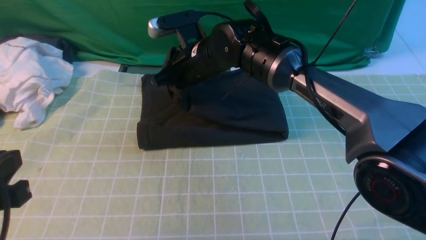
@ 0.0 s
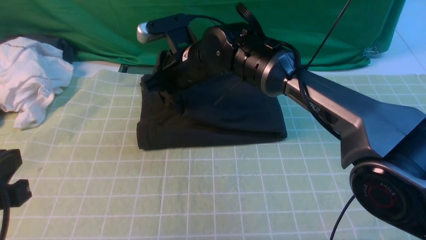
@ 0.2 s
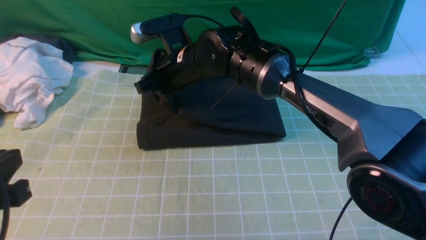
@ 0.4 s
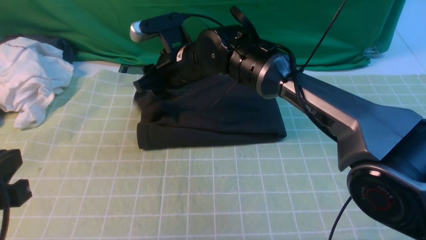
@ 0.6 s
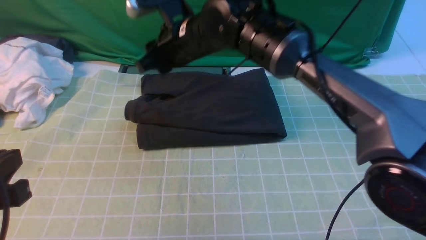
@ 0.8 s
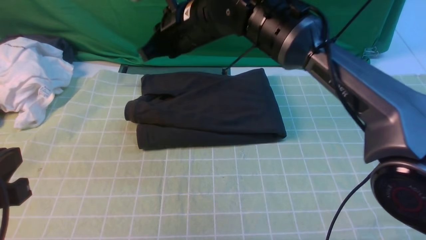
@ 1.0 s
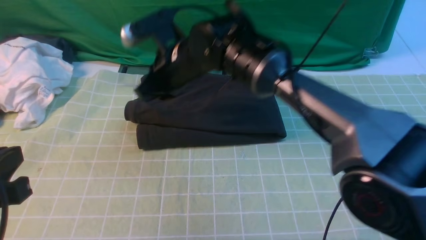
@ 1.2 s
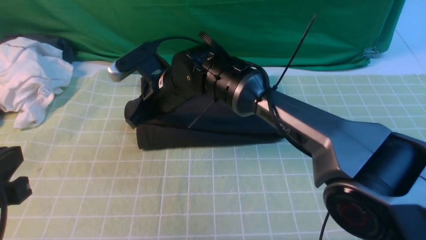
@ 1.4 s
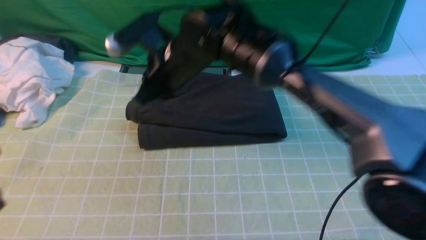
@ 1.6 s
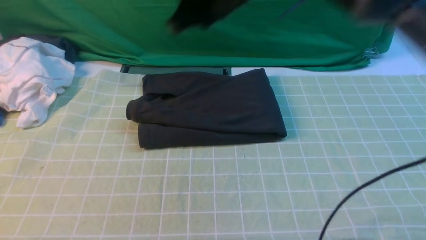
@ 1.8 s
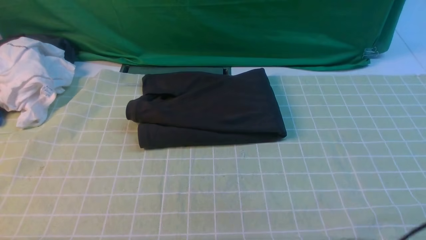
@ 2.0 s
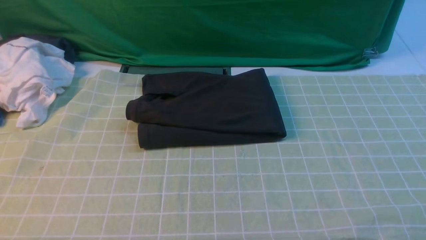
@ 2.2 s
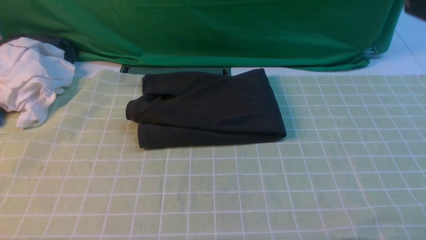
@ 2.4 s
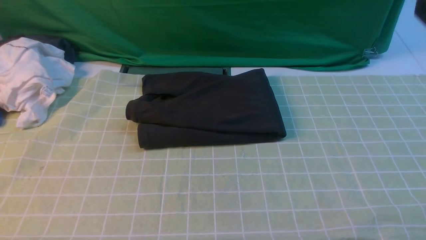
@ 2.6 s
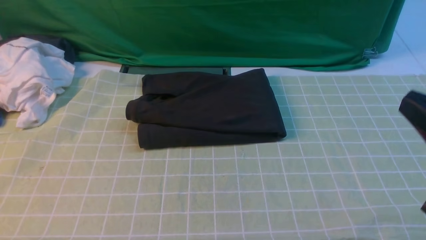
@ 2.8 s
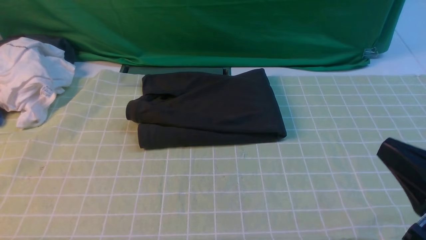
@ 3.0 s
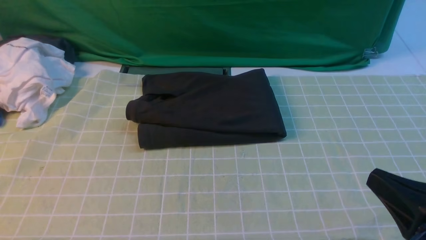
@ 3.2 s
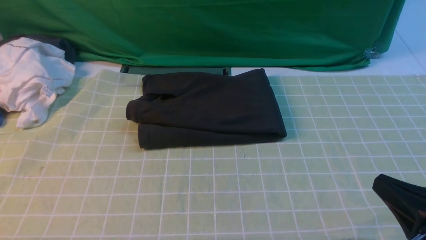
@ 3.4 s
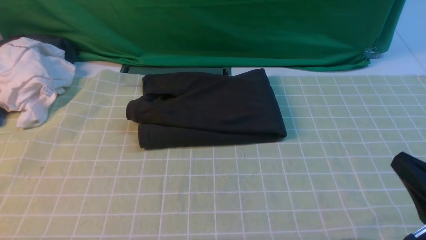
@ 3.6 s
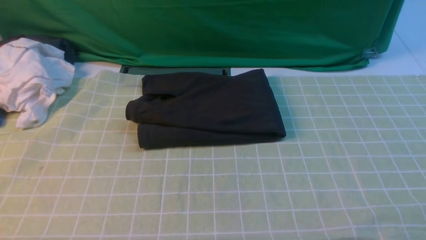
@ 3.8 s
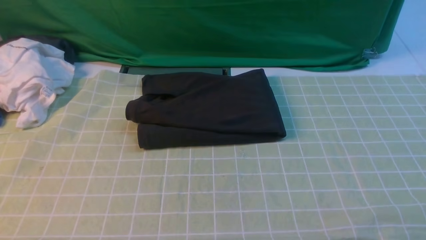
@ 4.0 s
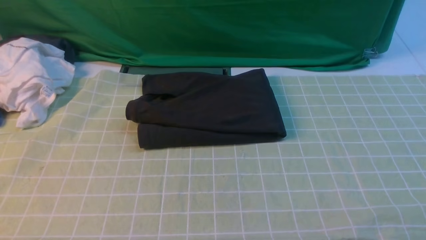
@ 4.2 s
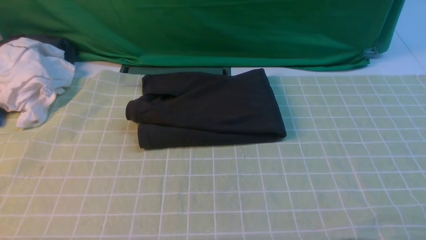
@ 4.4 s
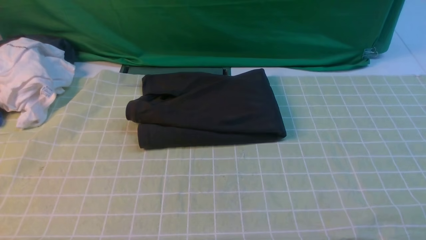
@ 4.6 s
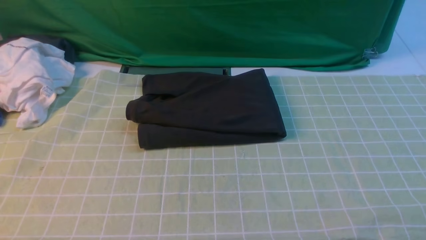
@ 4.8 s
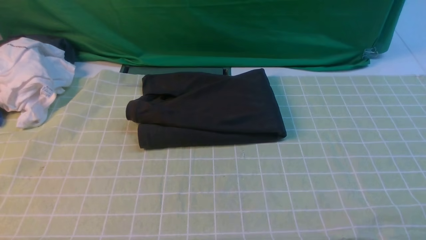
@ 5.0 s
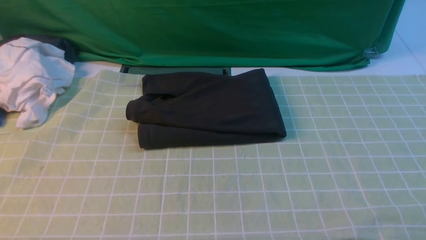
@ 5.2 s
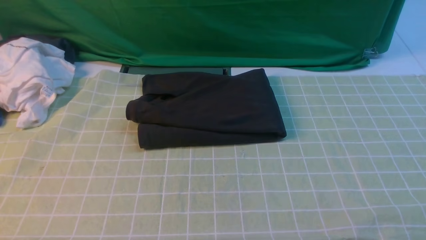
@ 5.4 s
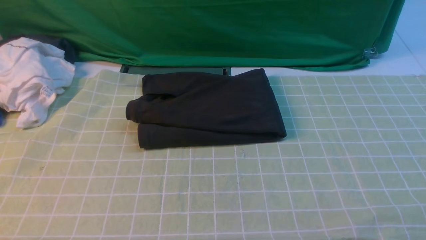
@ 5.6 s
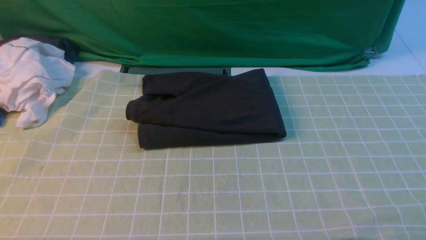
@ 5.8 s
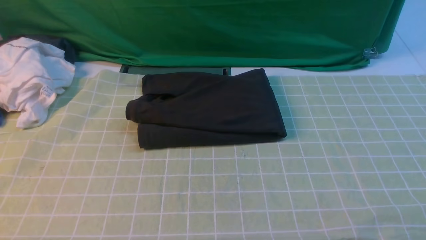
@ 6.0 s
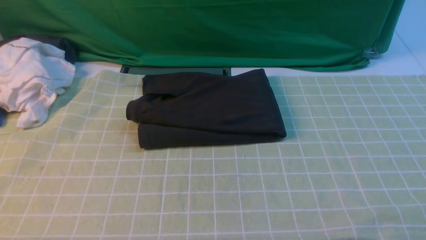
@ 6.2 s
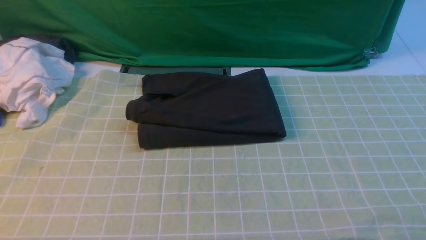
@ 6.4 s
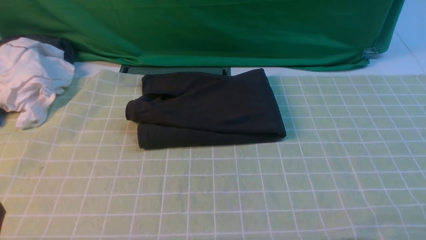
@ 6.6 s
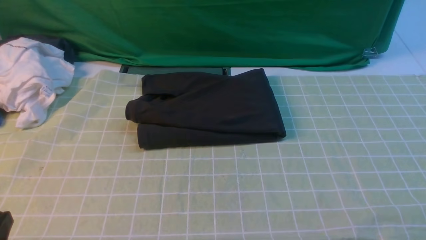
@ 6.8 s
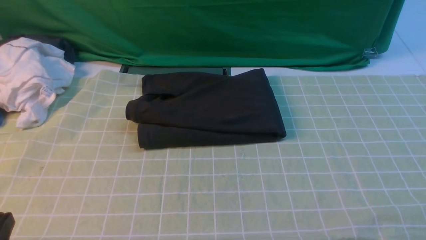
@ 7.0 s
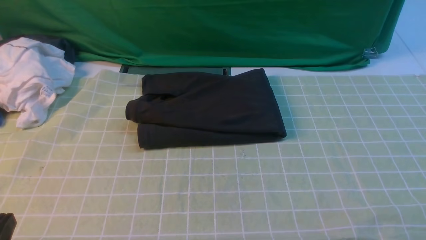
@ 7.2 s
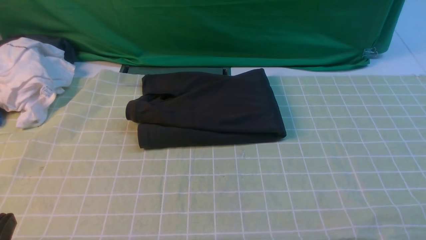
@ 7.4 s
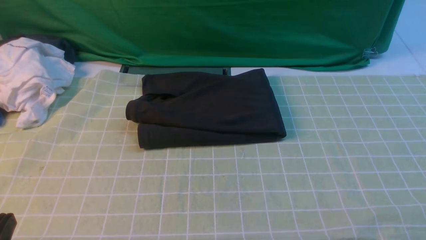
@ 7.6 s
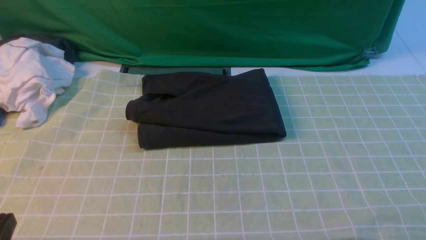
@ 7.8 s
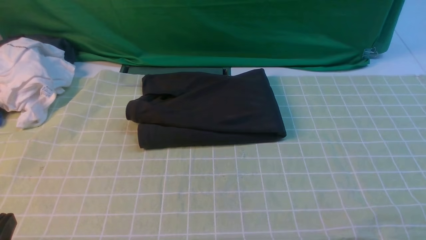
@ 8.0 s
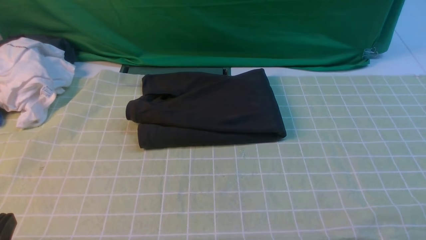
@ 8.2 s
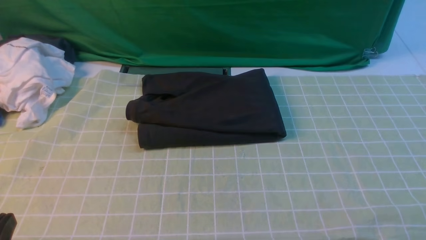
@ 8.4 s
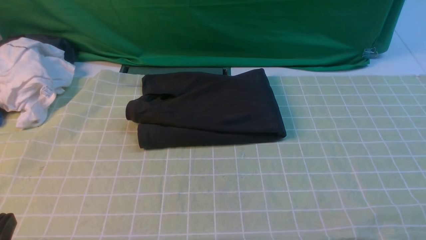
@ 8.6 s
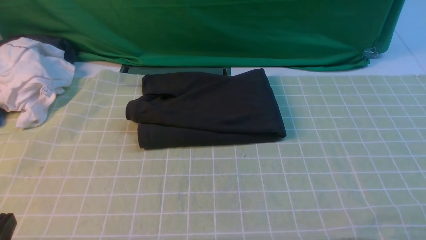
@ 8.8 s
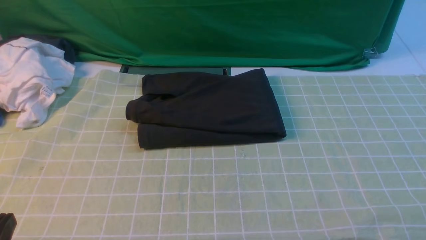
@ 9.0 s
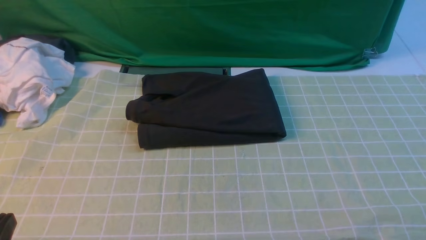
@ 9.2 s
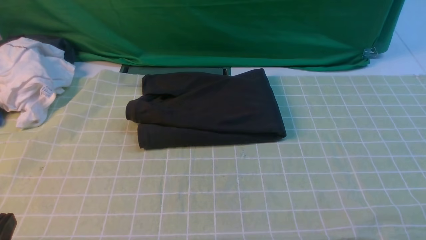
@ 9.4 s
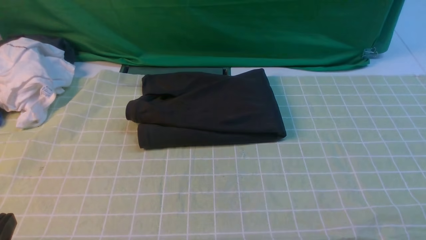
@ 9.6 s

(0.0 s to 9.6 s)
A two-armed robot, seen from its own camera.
0.0 s - 1.6 s: The right gripper goes up and down, about 5 cm each way, reversing 2 times, and opens, then closes once more.
1.6 s - 3.2 s: The right gripper heads to the right and backward, covering some 40 cm.
3.2 s - 4.8 s: The right gripper shifts about 10 cm downward and to the right.
8.0 s - 9.6 s: The two grippers keep their place.

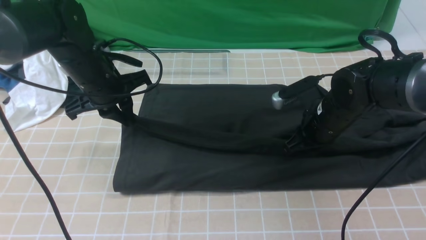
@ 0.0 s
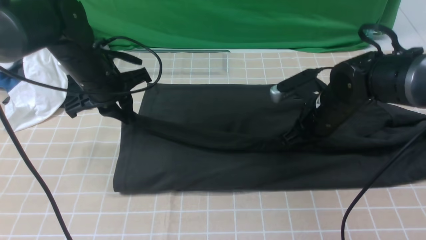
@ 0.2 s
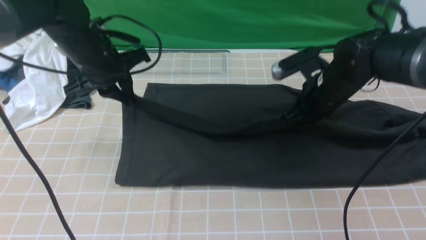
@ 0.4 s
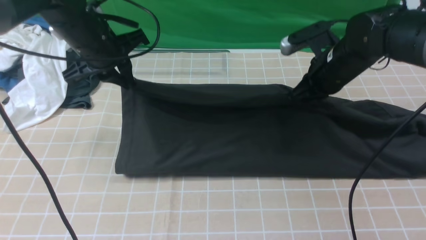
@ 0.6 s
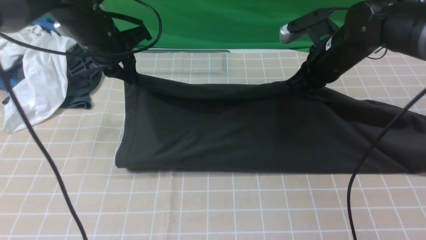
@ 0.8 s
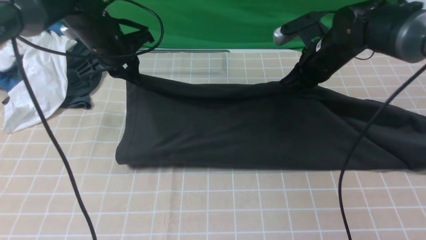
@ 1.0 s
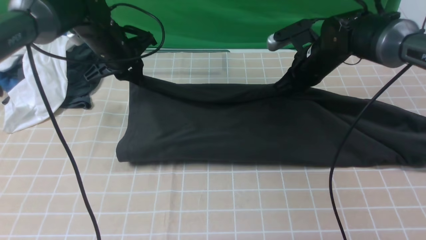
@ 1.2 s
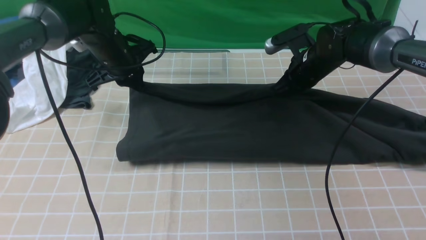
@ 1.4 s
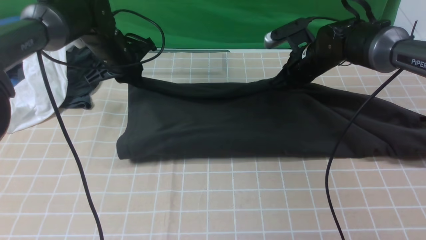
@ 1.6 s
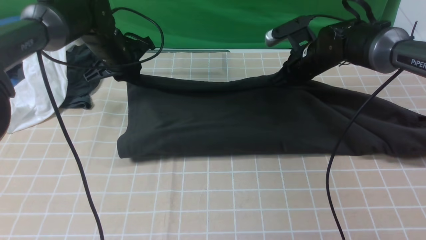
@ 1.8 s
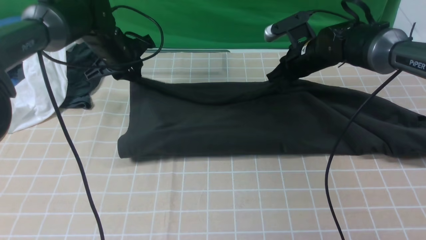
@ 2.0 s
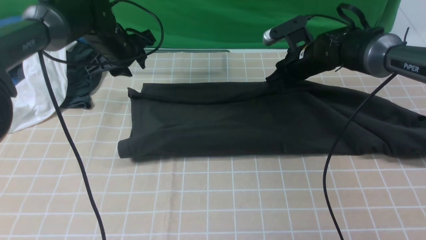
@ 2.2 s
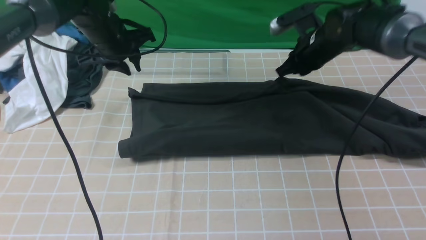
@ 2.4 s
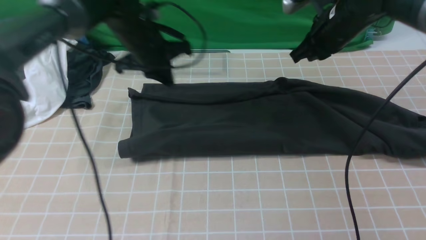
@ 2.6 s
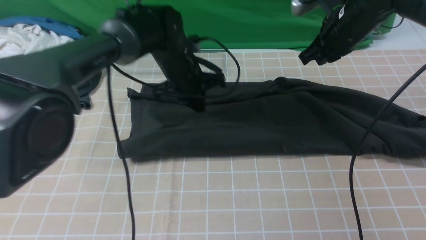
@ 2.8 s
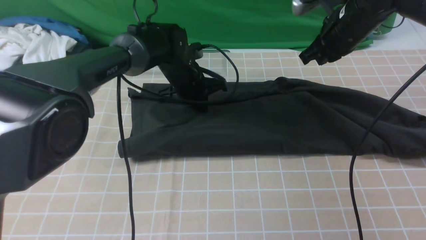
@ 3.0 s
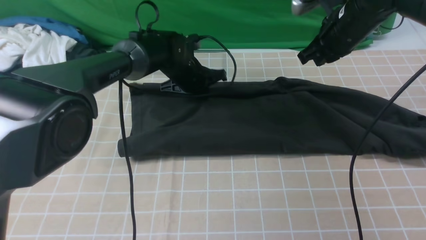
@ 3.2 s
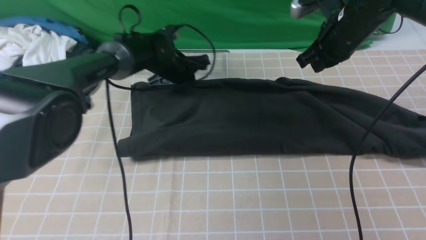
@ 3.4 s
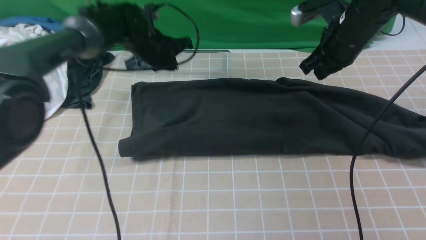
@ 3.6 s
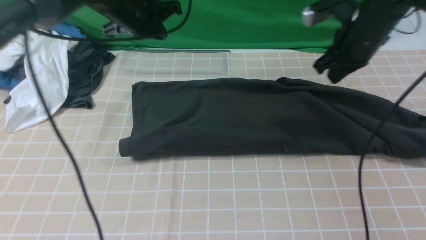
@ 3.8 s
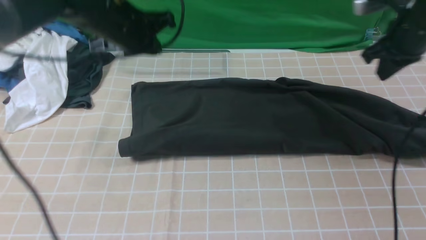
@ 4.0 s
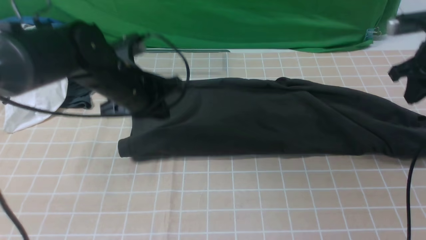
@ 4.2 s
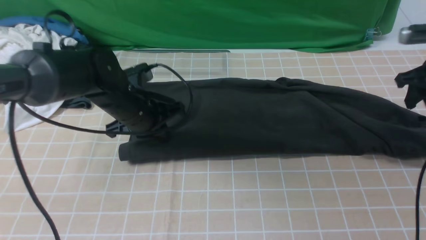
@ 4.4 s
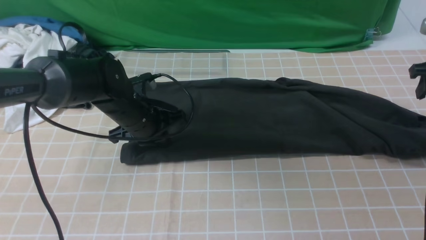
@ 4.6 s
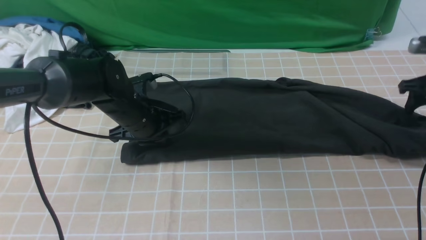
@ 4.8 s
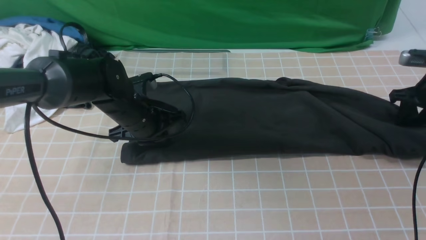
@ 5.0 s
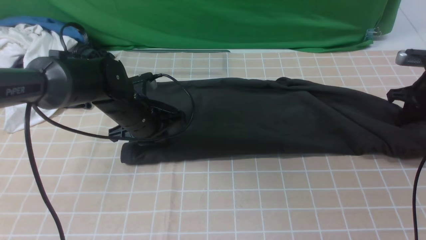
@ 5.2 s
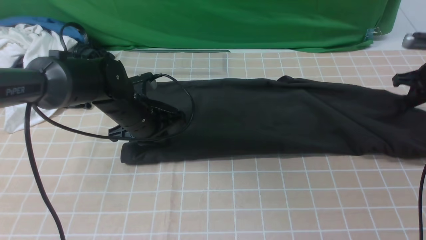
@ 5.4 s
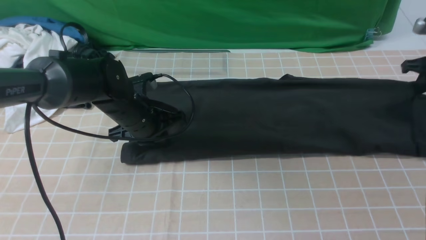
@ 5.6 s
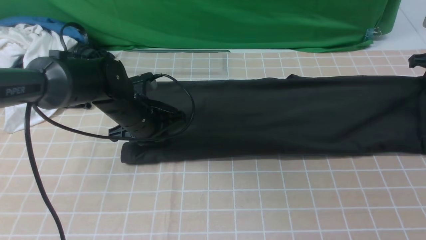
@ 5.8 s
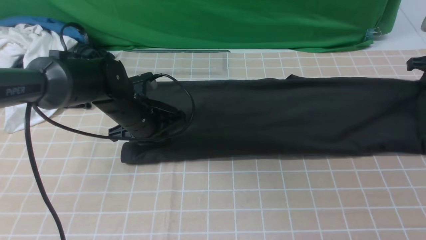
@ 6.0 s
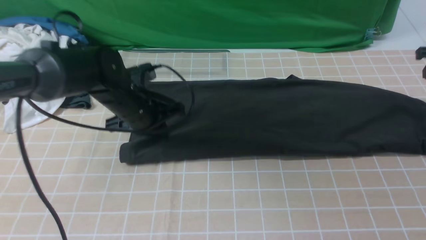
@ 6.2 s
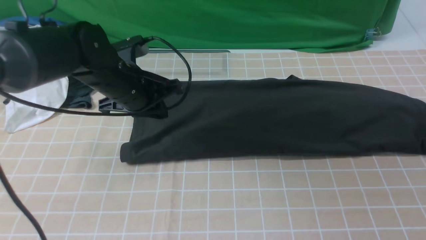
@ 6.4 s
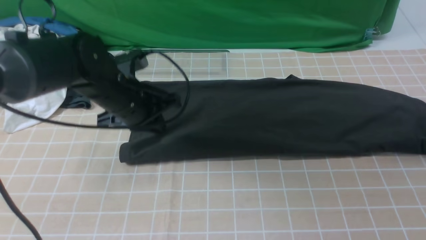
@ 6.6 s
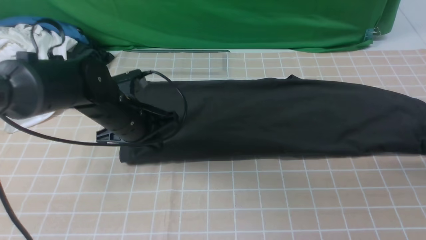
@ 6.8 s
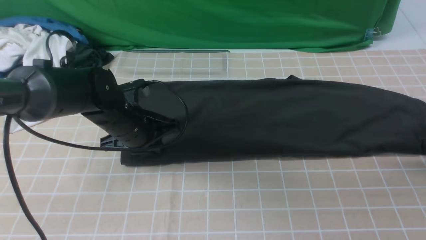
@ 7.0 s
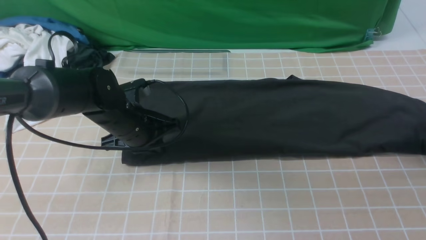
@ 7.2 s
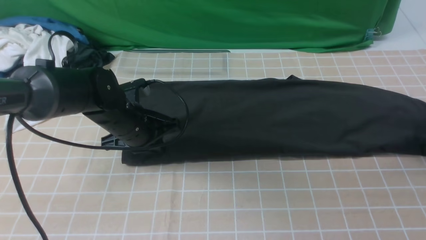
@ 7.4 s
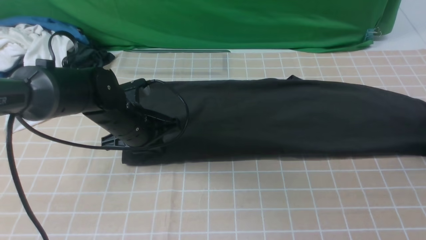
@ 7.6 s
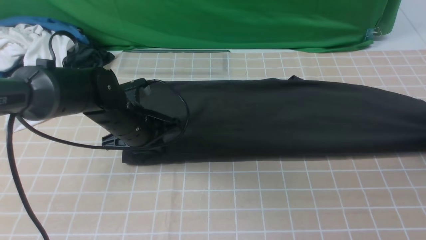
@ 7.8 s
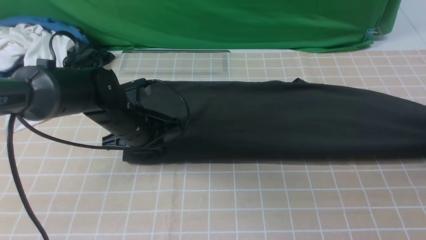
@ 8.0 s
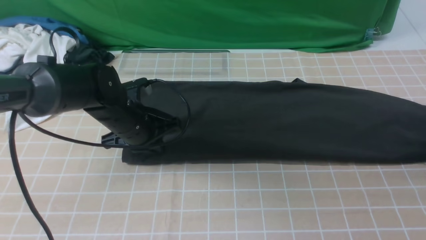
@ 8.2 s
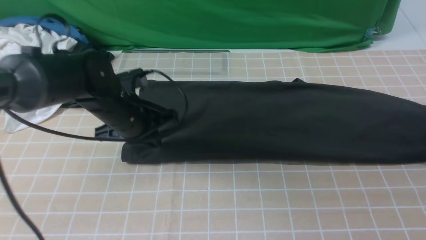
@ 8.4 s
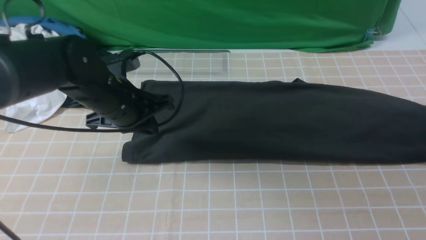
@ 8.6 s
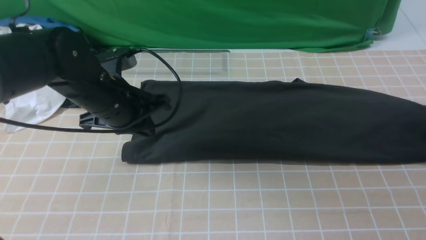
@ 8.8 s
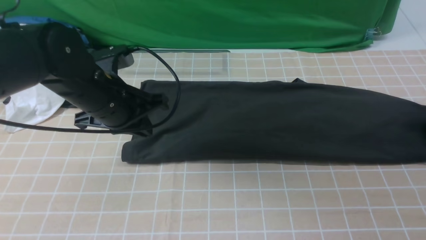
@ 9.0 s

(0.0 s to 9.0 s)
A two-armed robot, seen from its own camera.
Step, 0.0 s - 3.4 s: use both arms to drag the lower edge of the fabric forward and fold it over the upper edge.
0.0 s - 1.6 s: Both grippers travel together forward, about 10 cm.
1.6 s - 3.0 s: The left gripper is displaced to the right and downward by roughly 15 cm, and opens and closes again, while the right gripper moves upward, some 10 cm.
3.0 s - 4.4 s: The right gripper goes some 15 cm to the right, and opens; the left gripper heads backward and to the left, covering approximately 15 cm.
4.4 s - 6.0 s: The right gripper travels to the right by roughly 5 cm.
6.0 s - 7.6 s: The right gripper goes some 10 cm backward, and opens and closes again.
7.6 s - 9.0 s: The left gripper goes some 10 cm upward. Meanwhile the right gripper opens.
